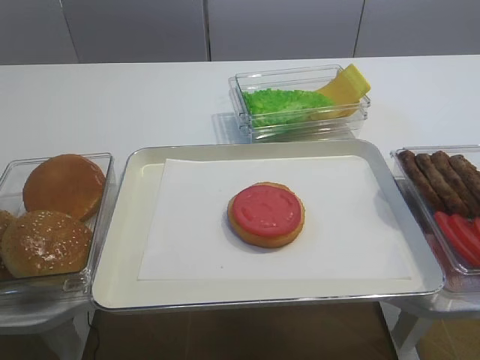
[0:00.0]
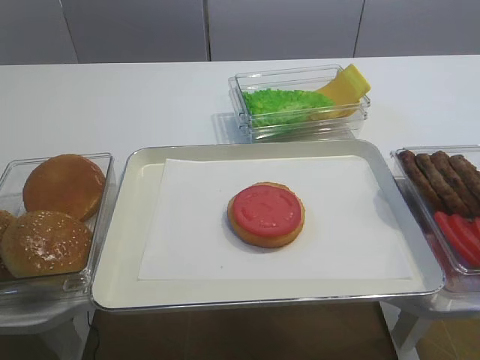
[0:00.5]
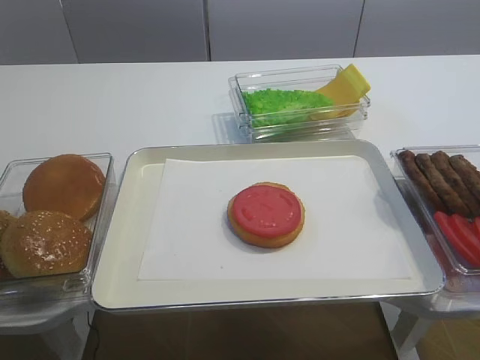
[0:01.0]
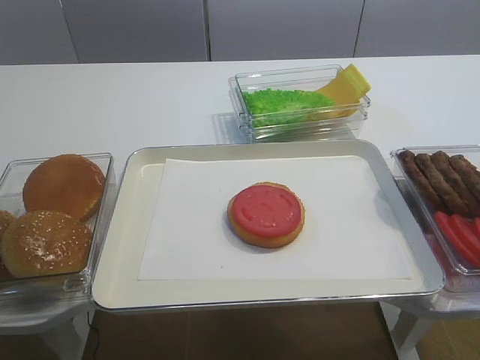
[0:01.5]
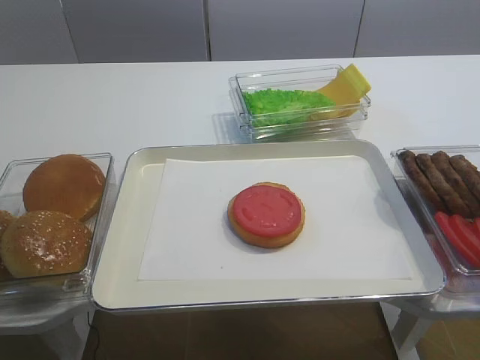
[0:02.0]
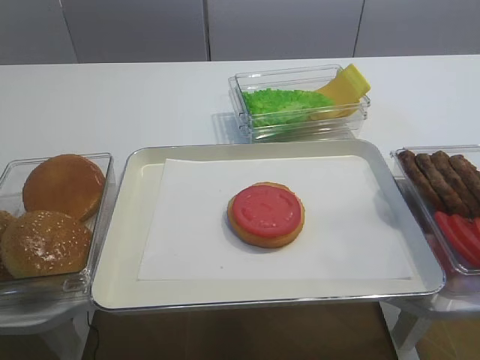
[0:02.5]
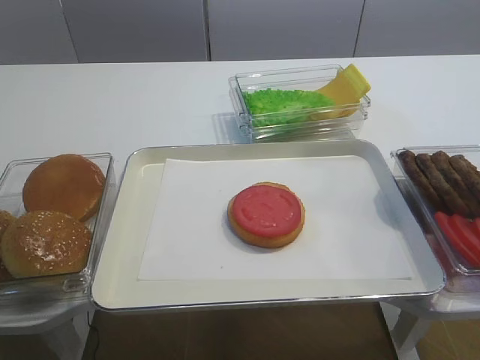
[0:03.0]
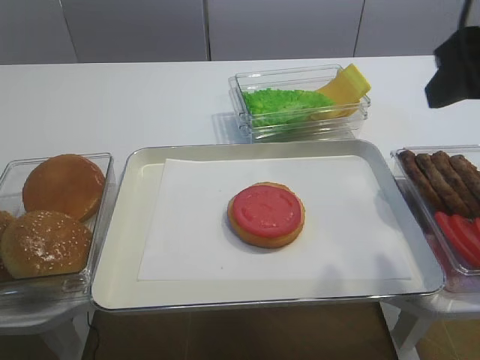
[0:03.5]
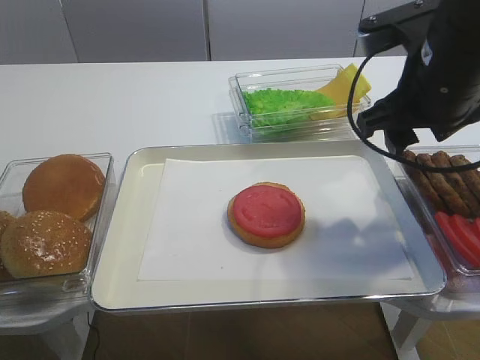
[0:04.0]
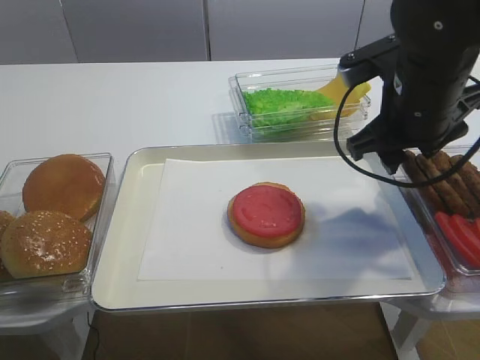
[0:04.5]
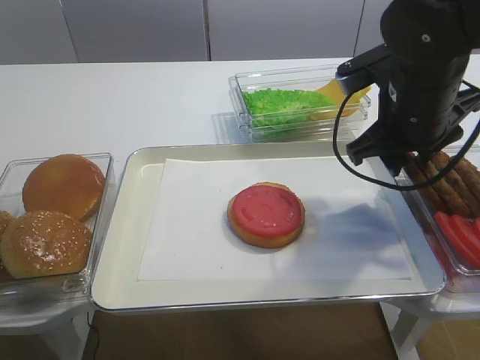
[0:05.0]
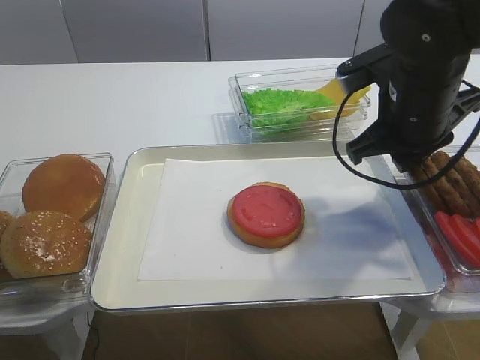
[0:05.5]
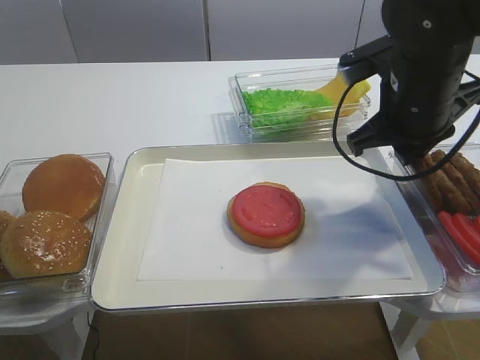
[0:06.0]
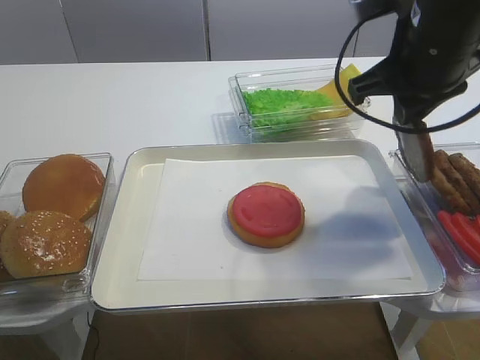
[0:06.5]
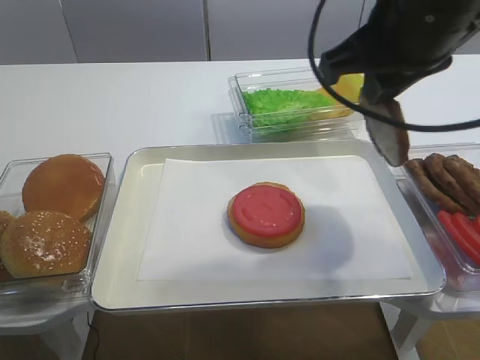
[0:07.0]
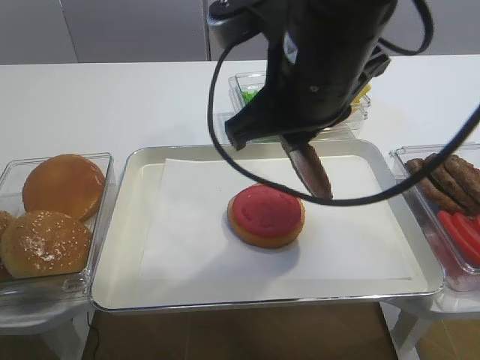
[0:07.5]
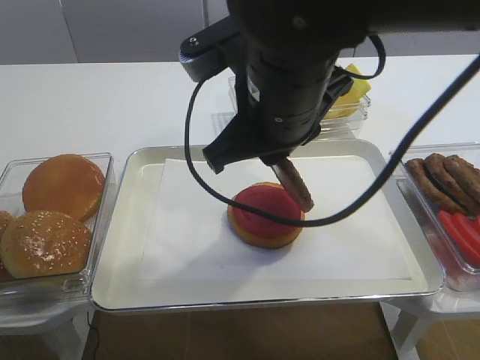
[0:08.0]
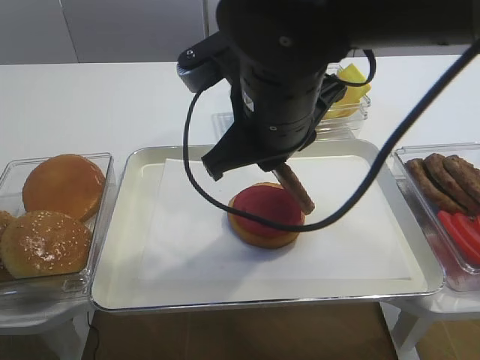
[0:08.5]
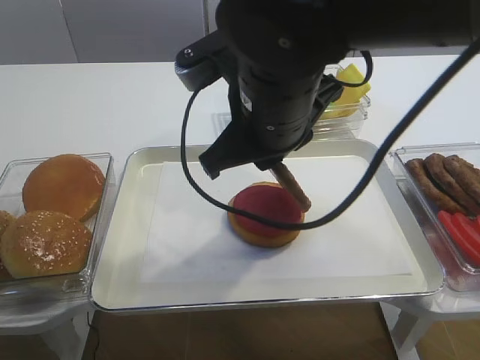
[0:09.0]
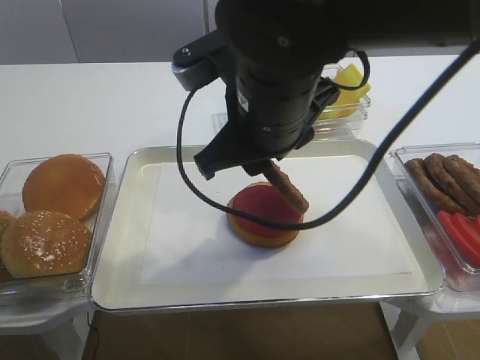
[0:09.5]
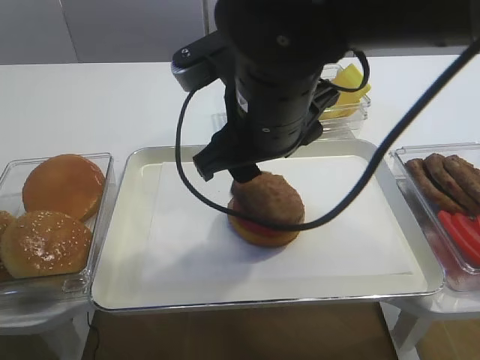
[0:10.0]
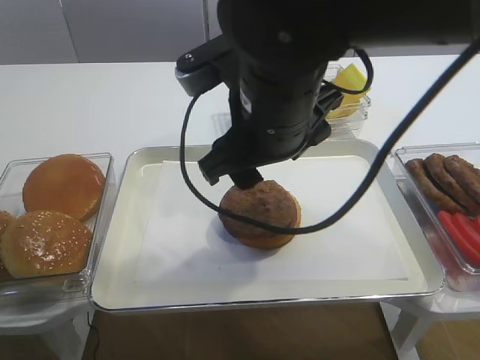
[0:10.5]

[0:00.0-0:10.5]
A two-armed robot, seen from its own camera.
Step, 0:00.0 to 0:06.0: Pick up the cutlet with the right gripper.
Step, 0:06.5 to 0:10.0: Place the cutlet on the tomato slice with the right gripper.
0:02.0 to 0:04.0: The right gripper shifts approximately 30 cm forward.
0:04.0 to 0:06.5: The right gripper closes.
0:06.5 to 0:08.5: The right gripper goes roughly 15 cm to the left and backward.
0:08.5 to 0:10.5: The right gripper opens its fingers.

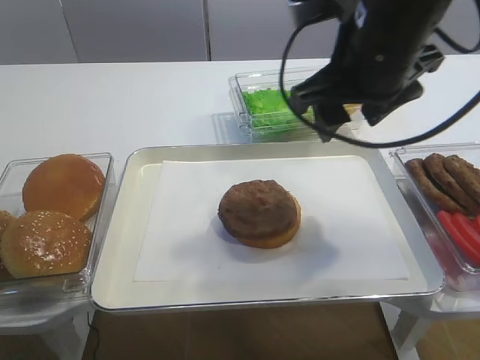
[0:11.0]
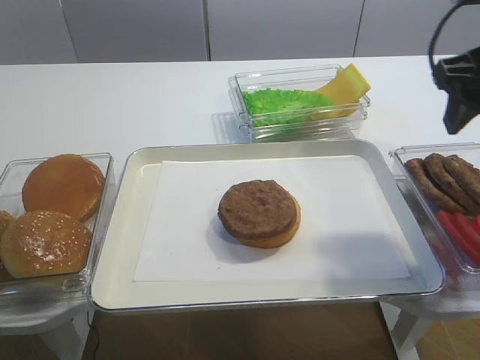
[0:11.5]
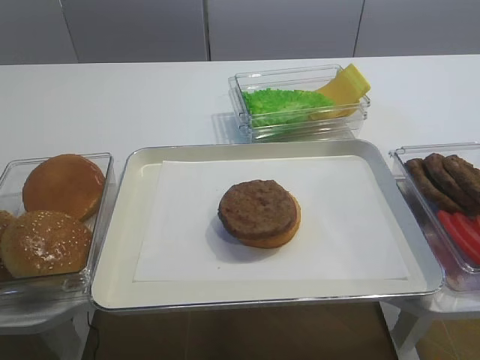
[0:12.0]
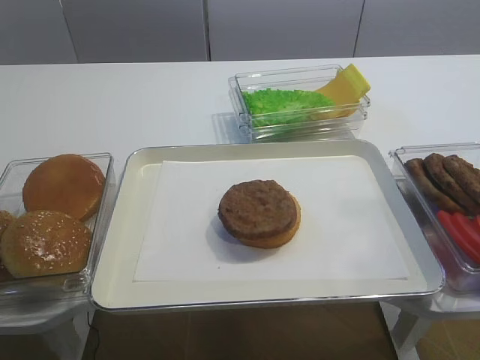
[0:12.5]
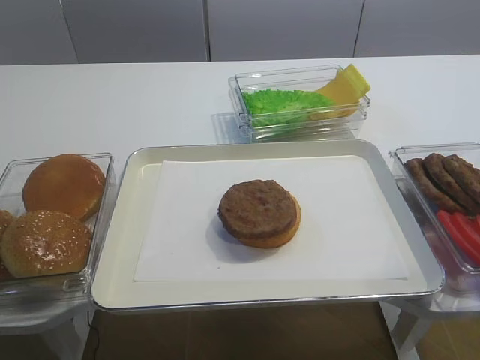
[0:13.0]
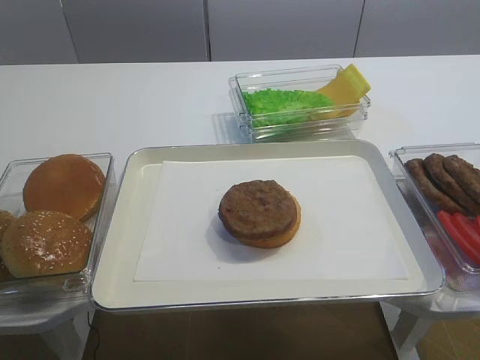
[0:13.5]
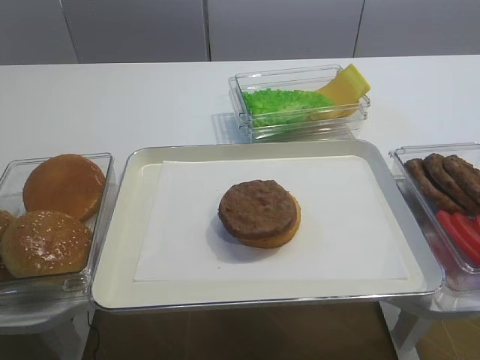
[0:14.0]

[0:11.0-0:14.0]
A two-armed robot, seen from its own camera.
0:11.0 to 0:12.5: The right gripper heads backward and to the right, covering some 25 cm.

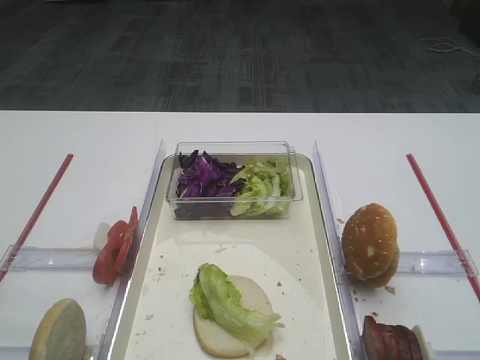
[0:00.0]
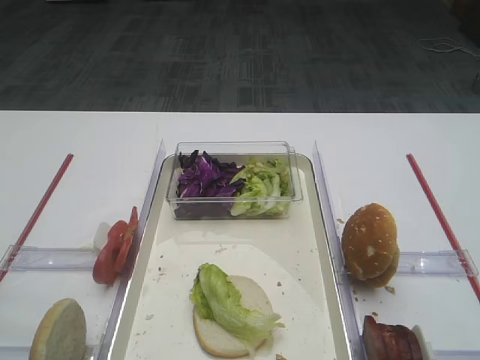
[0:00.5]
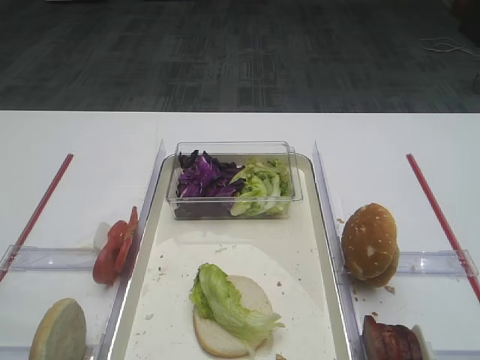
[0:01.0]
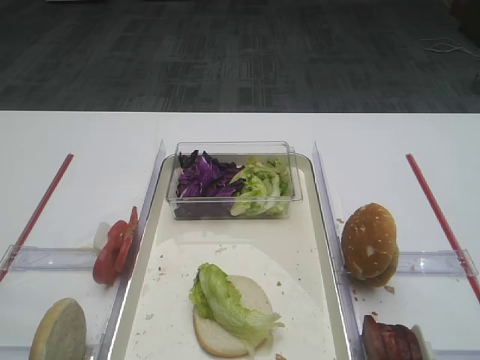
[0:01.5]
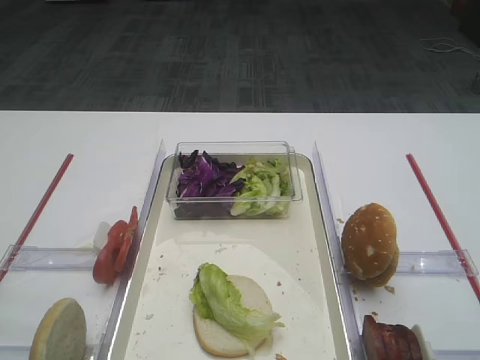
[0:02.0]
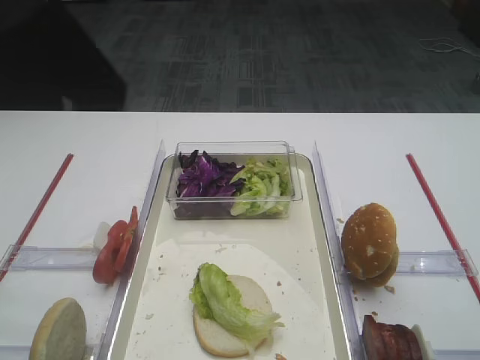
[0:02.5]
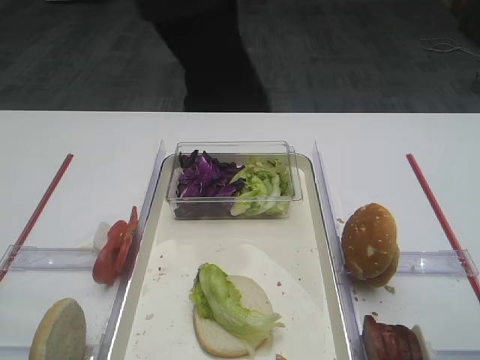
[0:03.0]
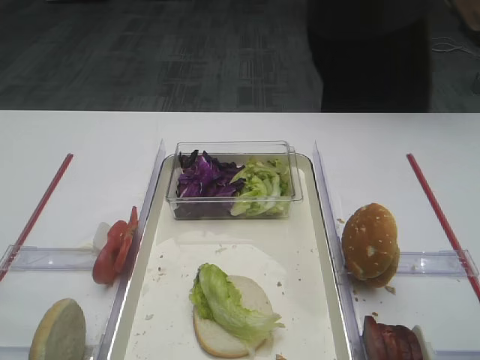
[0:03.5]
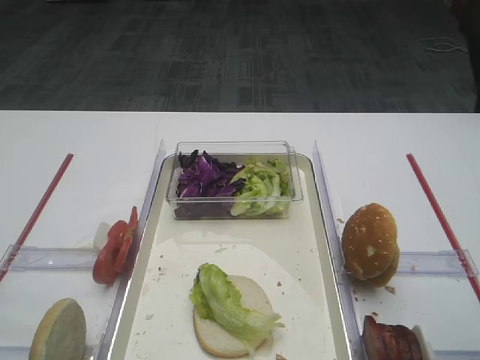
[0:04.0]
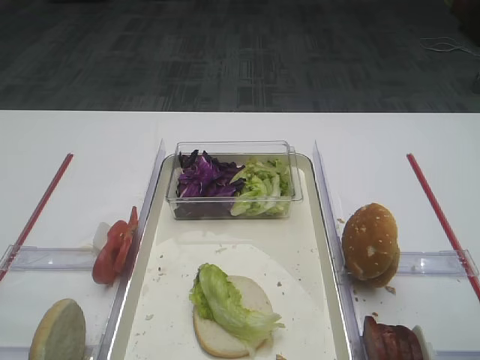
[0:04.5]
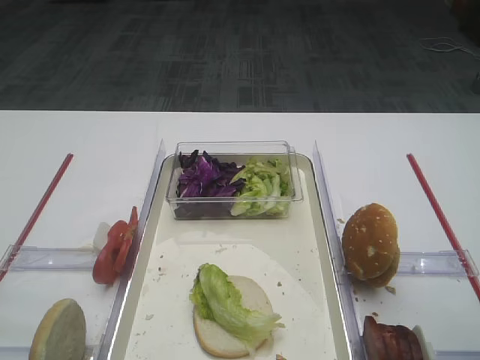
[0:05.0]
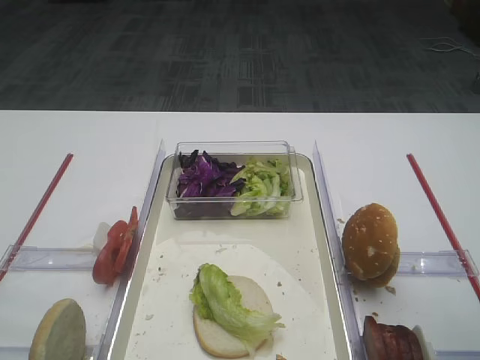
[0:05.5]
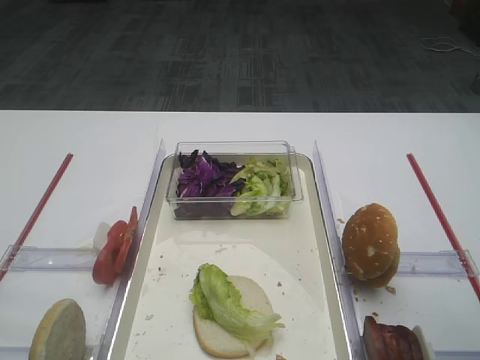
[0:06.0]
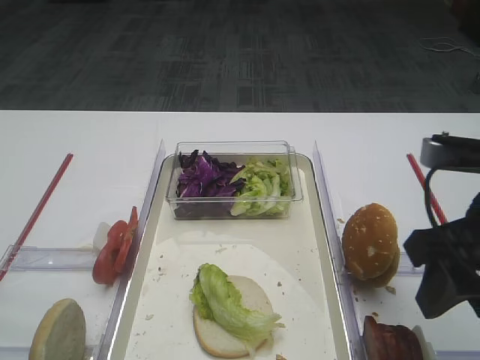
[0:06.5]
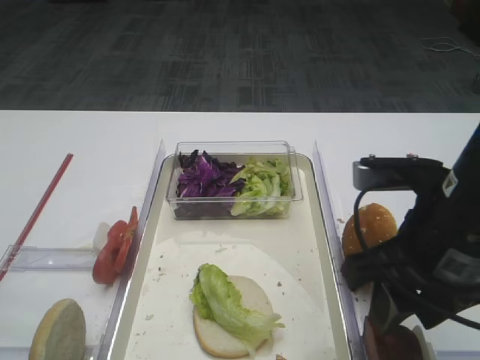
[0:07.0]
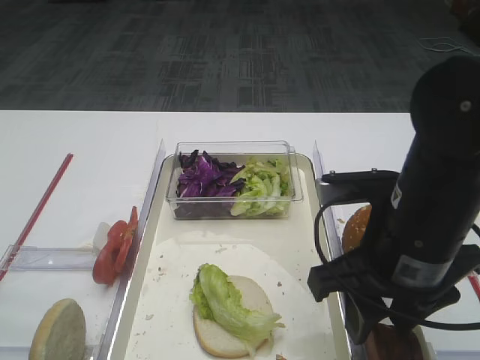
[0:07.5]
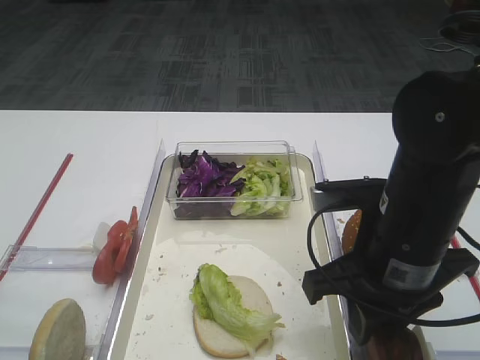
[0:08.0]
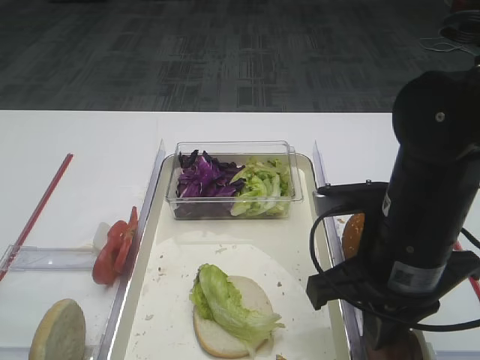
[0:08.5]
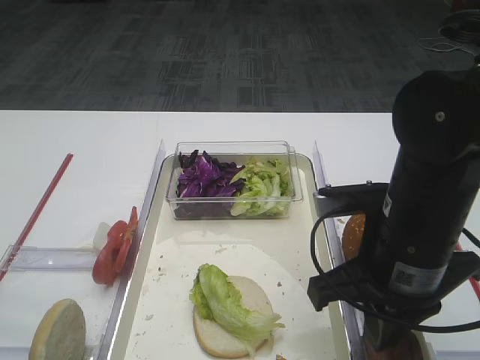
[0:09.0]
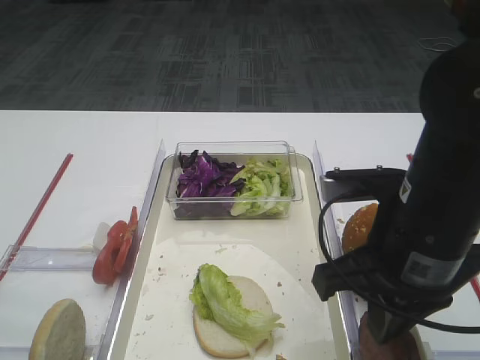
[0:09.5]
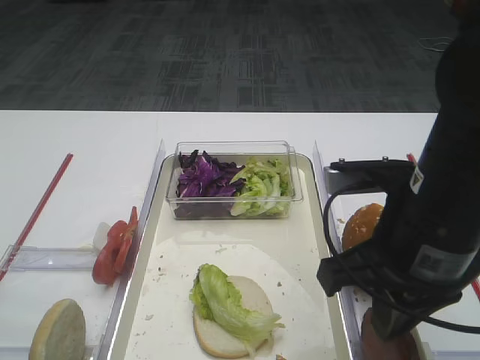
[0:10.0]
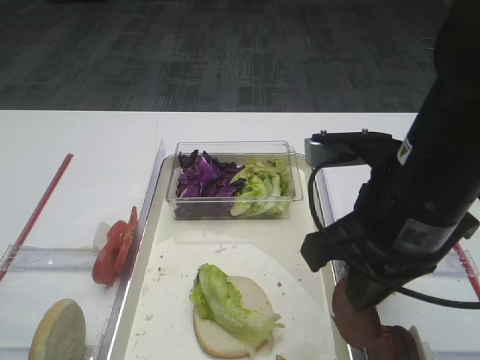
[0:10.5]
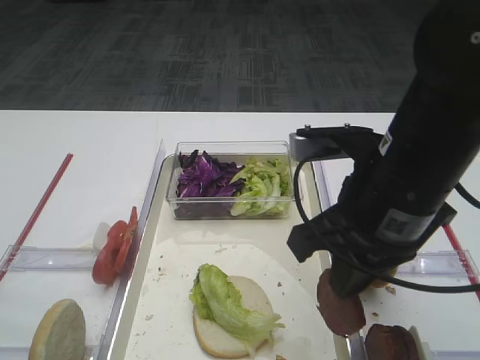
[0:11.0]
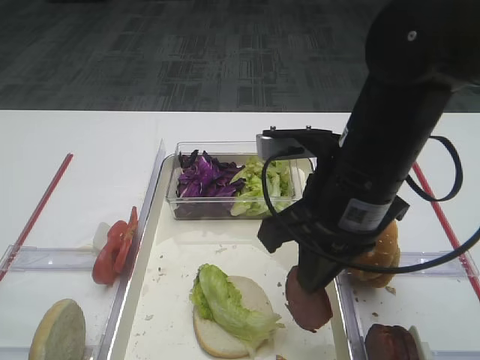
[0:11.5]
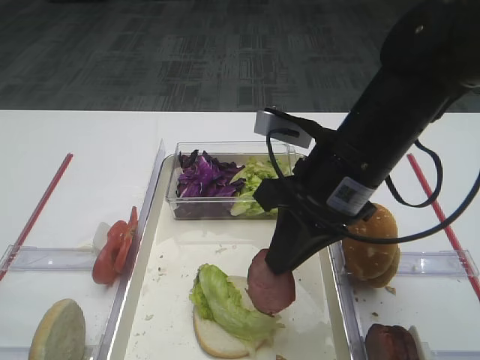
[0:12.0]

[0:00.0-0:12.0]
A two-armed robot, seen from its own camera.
Step, 0:00.0 to 0:10.5: Pick up the cutlet with the right gripper.
0:06.0 to 0:08.0: The right gripper shifts approximately 15 cm to the left and downward, and closes its fingers.
0:08.0 to 0:10.0: The right gripper closes its fingers.
0:10.0 to 0:12.0: The right gripper goes some 5 cm forward.
